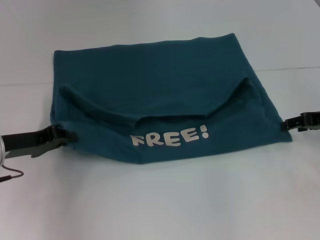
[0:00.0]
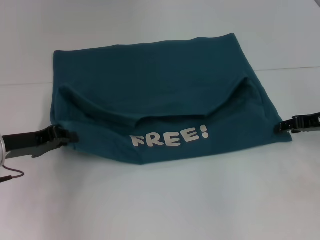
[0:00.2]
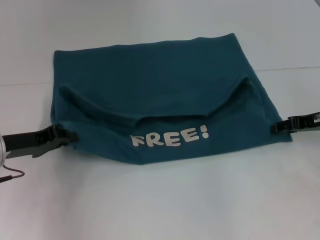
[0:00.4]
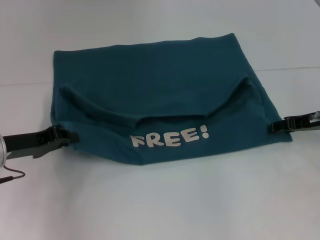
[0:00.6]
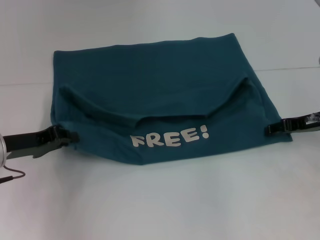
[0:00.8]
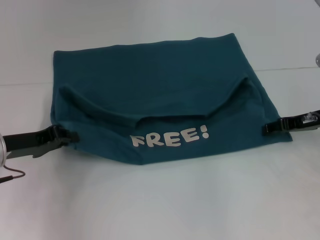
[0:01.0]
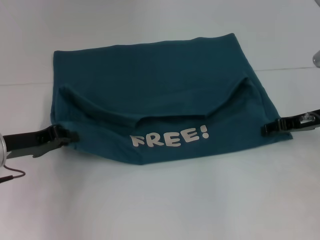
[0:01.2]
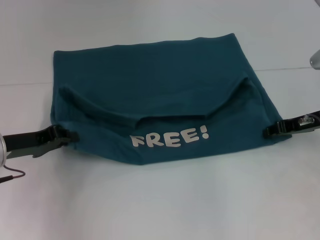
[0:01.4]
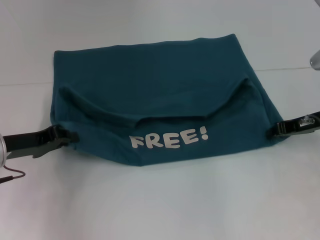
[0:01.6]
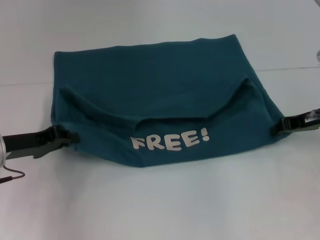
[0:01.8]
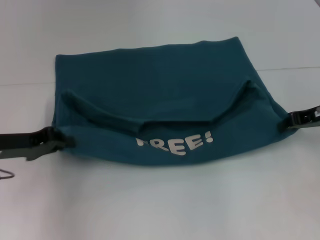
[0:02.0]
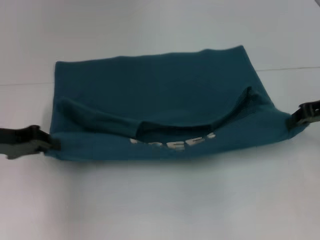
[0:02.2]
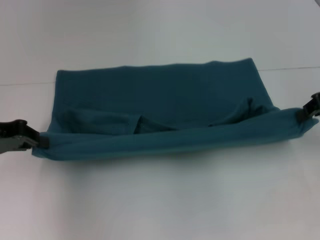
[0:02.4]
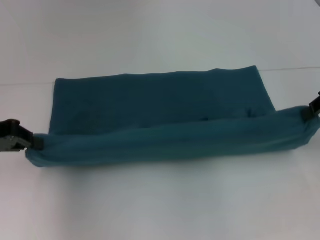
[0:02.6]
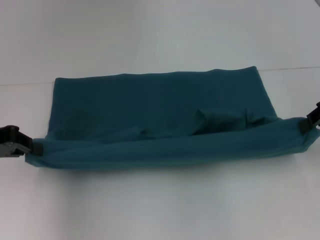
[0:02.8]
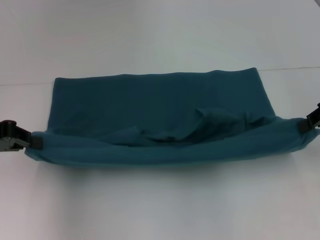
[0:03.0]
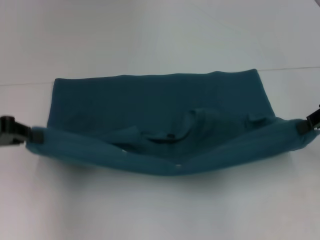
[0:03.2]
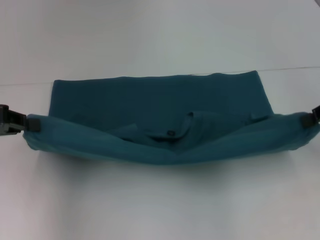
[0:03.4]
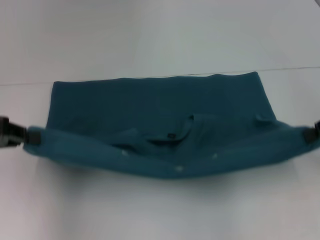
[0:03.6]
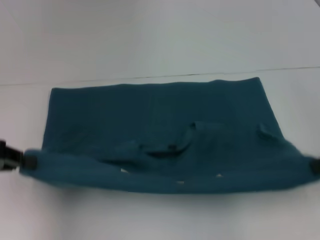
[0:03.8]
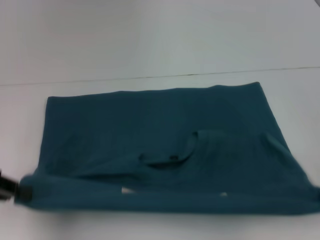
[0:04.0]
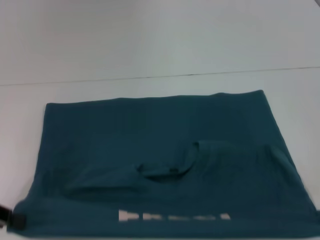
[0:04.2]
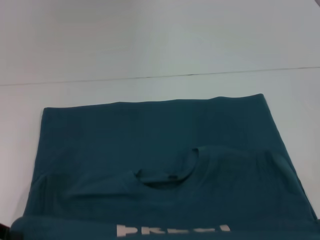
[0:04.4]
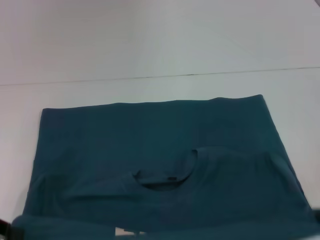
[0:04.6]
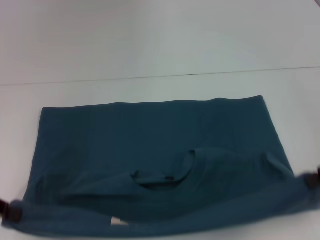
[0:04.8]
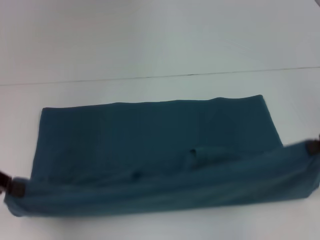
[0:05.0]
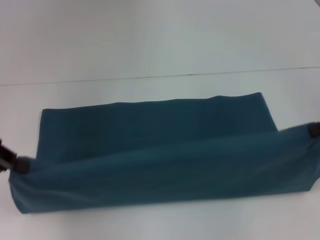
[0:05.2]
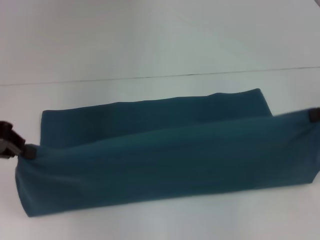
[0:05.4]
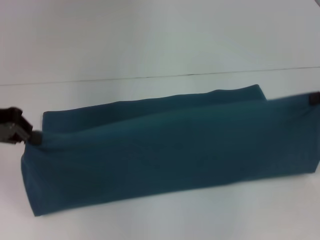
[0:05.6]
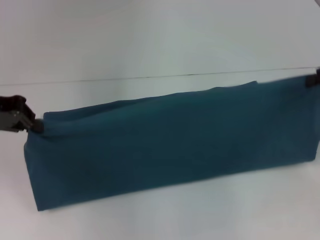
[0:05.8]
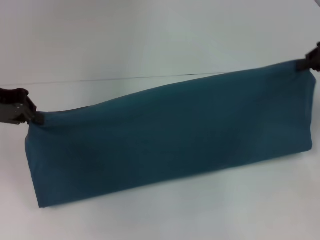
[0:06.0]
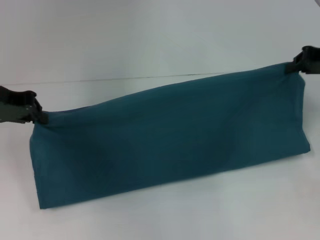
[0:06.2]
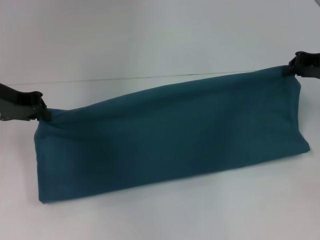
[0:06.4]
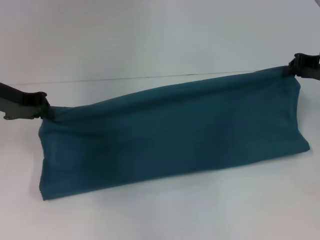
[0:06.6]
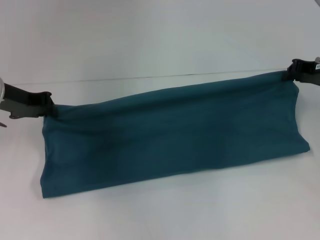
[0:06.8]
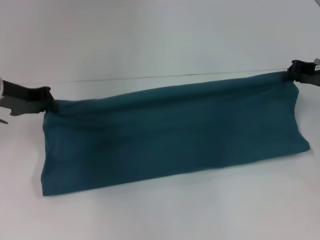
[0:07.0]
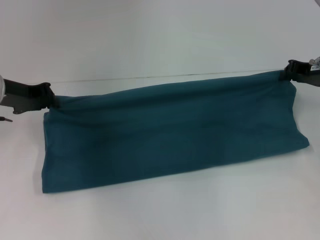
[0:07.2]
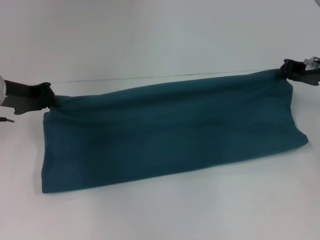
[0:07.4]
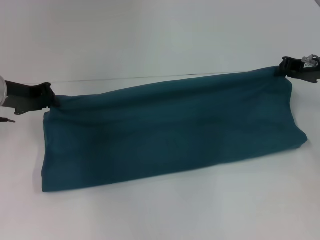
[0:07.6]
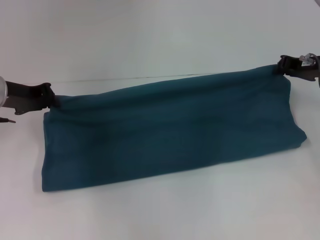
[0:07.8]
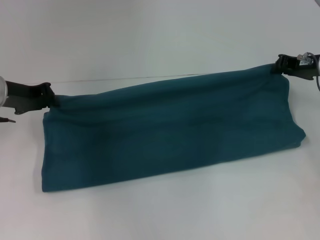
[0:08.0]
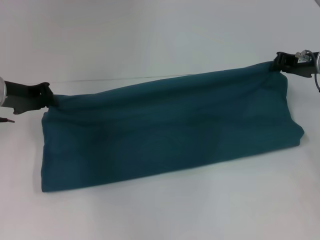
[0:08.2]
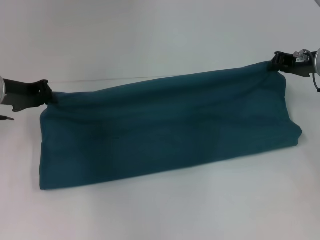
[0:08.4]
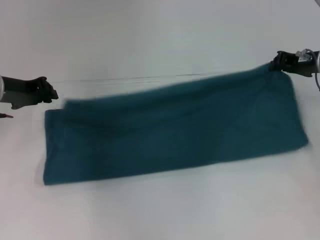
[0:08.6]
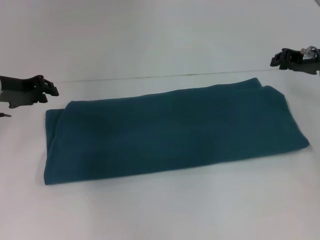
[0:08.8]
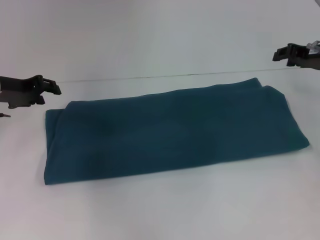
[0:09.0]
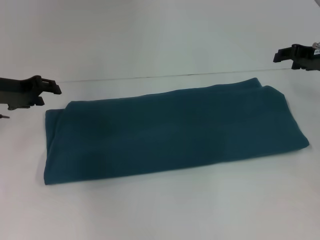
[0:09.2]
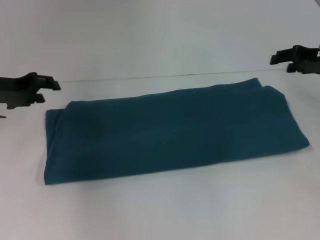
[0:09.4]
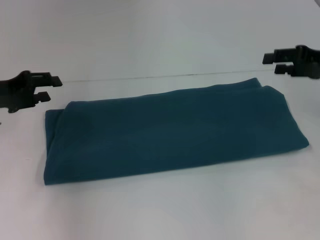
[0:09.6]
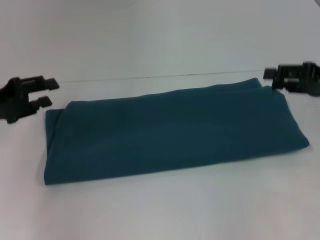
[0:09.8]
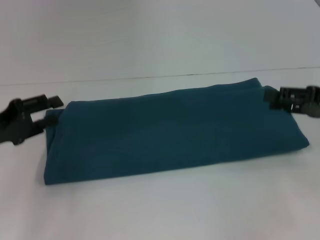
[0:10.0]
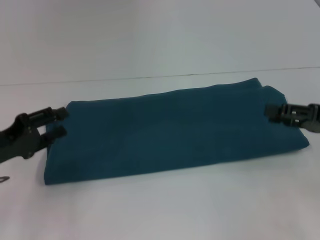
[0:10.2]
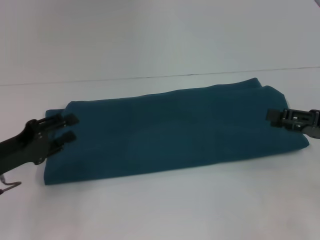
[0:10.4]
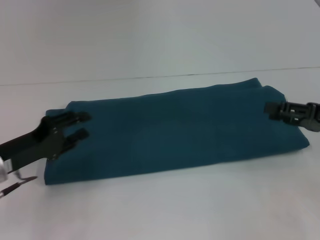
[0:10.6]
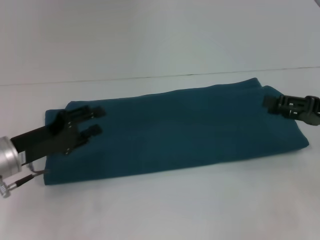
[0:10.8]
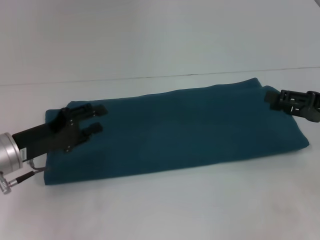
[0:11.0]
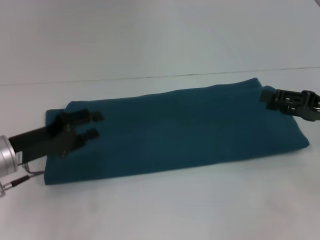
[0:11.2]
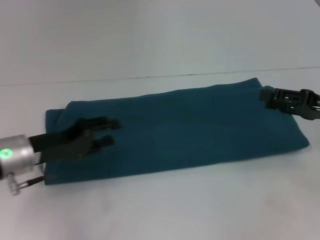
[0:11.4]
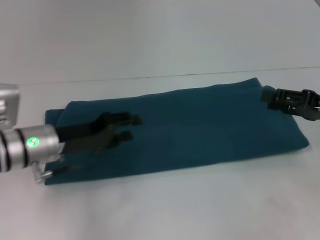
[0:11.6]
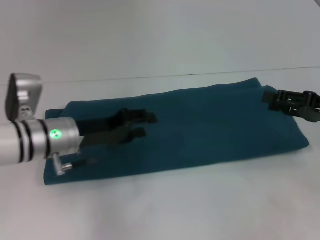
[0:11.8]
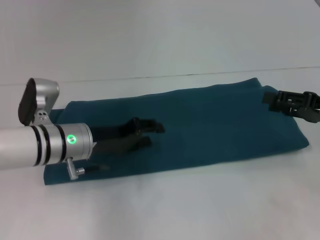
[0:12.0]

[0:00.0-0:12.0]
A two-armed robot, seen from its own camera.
Step, 0:00.0 to 0:04.4: Pull the clothes with your left hand.
Step, 0:00.0 to 0:04.4: Pull the clothes with your right hand.
Step, 0:04.6 to 0:08.6: Fold the clothes to the right.
0:00.0 to 0:01.6: There are only small adjustments of the grippers.
0:01.6 to 0:03.0: The two grippers go approximately 10 cm upward.
0:03.0 to 0:04.4: The left gripper moves backward, some 10 cm, while the right gripper goes some 10 cm downward and backward.
0:04.4 to 0:06.0: The grippers both shift forward and upward by about 15 cm.
0:06.0 to 0:07.6: Both grippers move downward, roughly 10 cm.
0:07.6 to 0:09.0: There are only small adjustments of the grippers.
0:09.0 to 0:10.4: The left gripper moves backward and downward, approximately 15 cm. The right gripper shifts approximately 15 cm backward, and opens up.
0:10.4 to 0:12.0: The left gripper moves to the right and forward, about 15 cm.

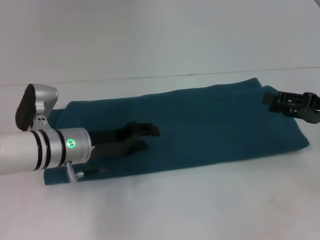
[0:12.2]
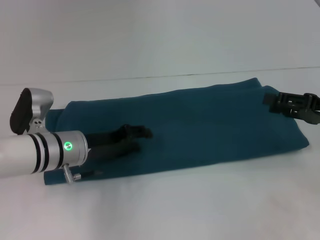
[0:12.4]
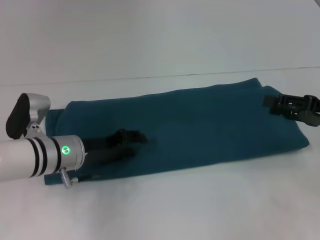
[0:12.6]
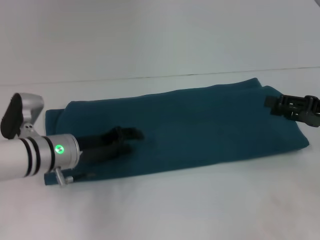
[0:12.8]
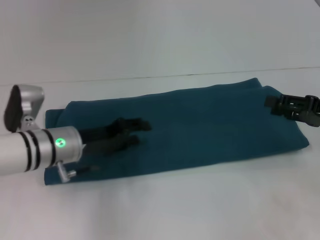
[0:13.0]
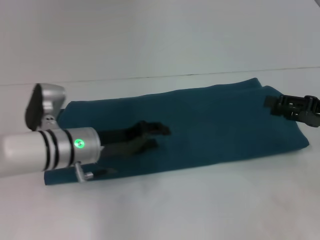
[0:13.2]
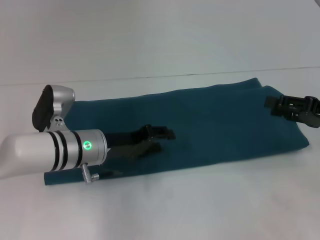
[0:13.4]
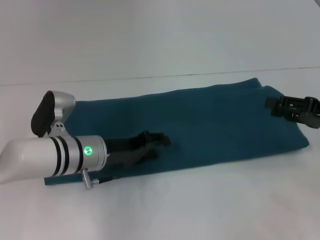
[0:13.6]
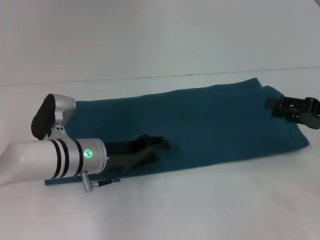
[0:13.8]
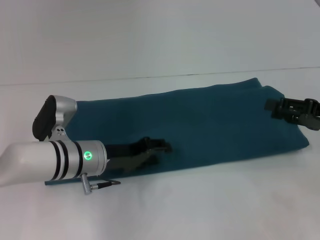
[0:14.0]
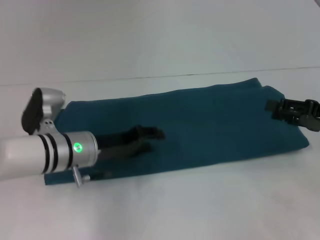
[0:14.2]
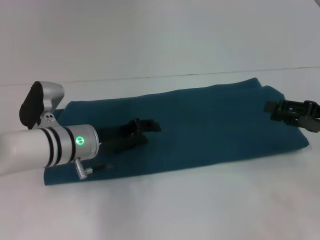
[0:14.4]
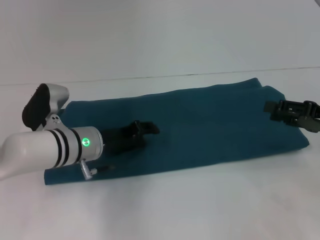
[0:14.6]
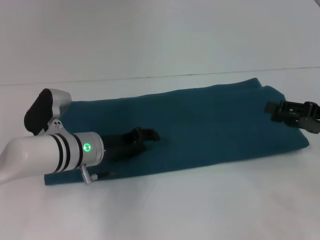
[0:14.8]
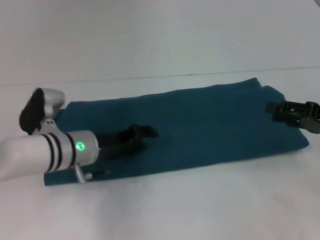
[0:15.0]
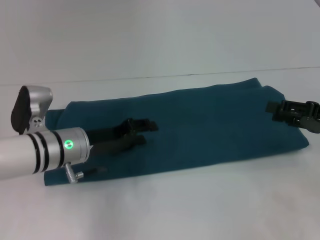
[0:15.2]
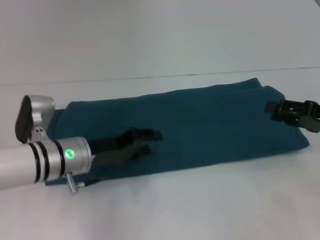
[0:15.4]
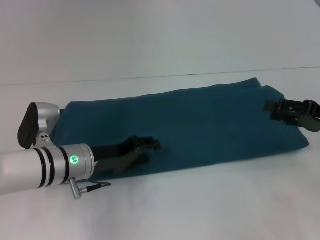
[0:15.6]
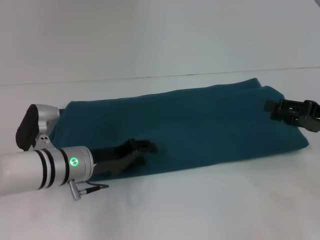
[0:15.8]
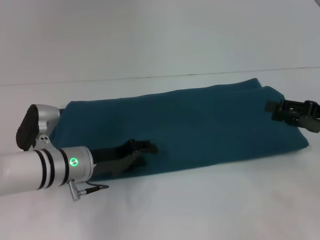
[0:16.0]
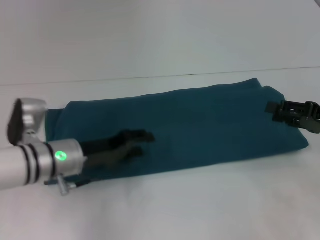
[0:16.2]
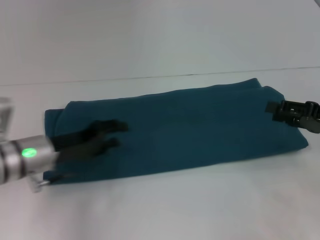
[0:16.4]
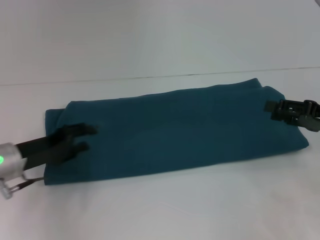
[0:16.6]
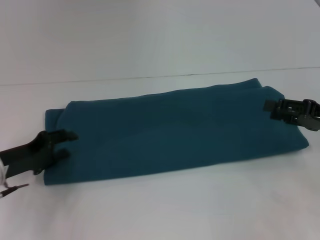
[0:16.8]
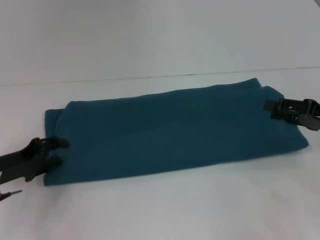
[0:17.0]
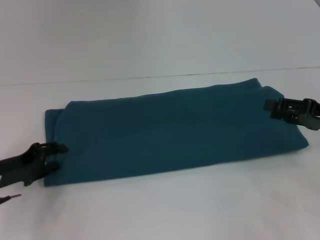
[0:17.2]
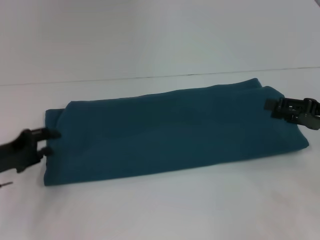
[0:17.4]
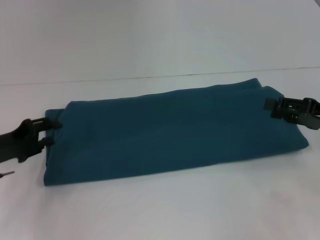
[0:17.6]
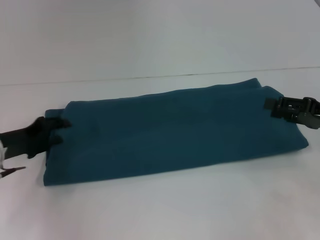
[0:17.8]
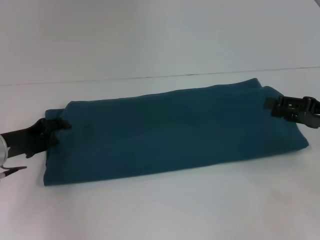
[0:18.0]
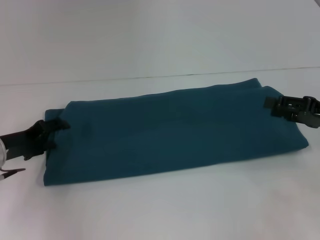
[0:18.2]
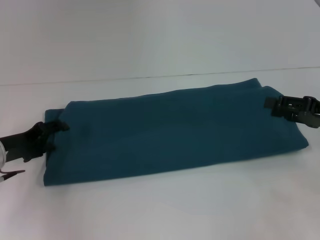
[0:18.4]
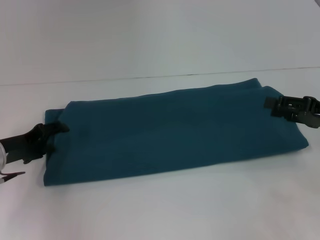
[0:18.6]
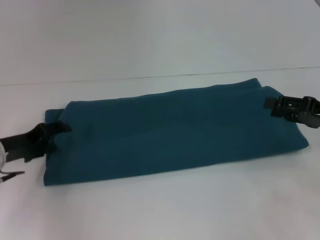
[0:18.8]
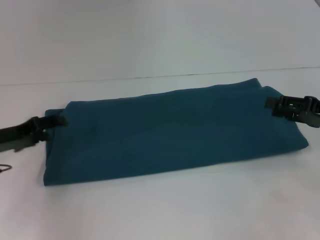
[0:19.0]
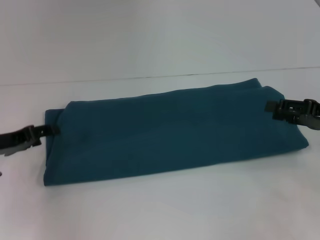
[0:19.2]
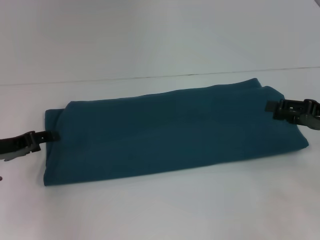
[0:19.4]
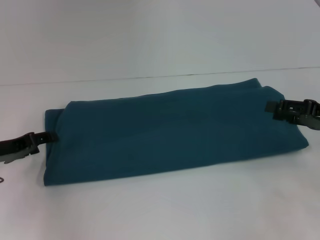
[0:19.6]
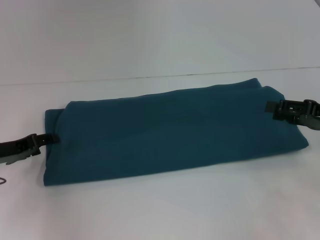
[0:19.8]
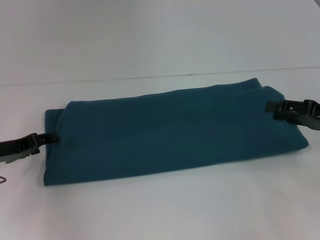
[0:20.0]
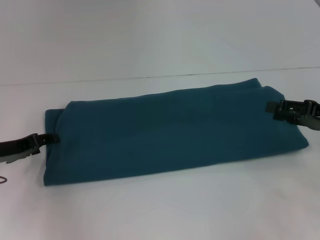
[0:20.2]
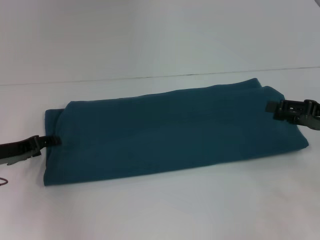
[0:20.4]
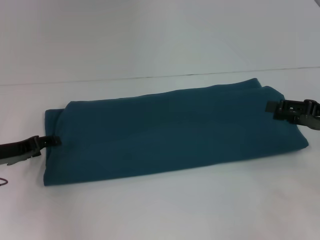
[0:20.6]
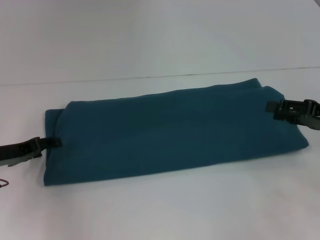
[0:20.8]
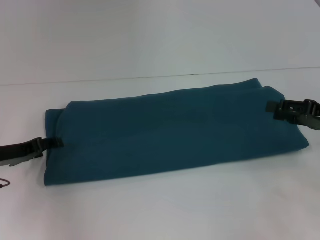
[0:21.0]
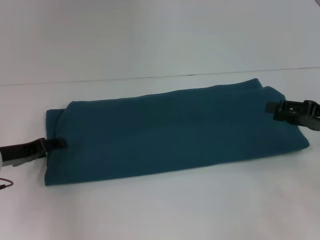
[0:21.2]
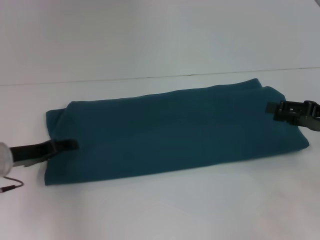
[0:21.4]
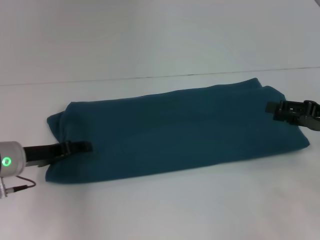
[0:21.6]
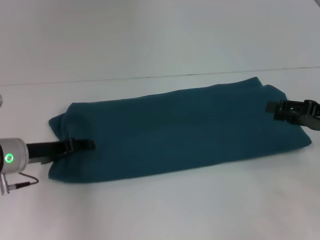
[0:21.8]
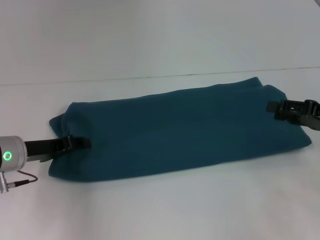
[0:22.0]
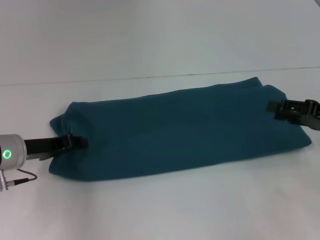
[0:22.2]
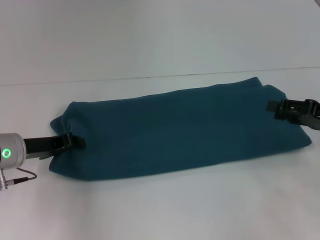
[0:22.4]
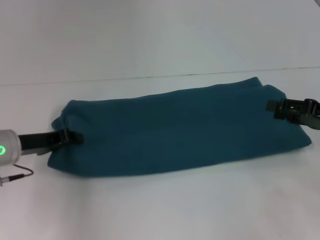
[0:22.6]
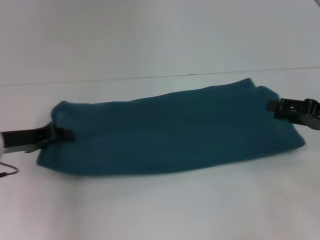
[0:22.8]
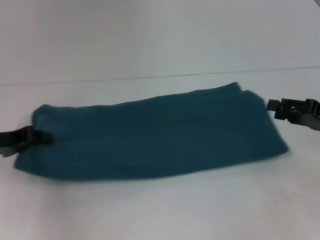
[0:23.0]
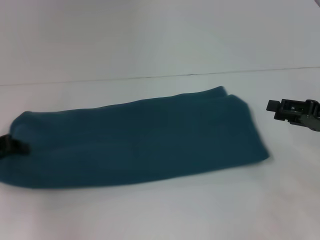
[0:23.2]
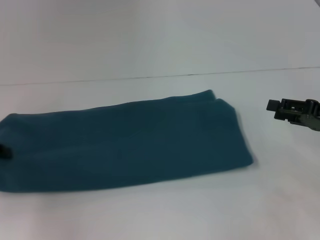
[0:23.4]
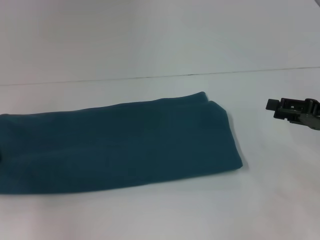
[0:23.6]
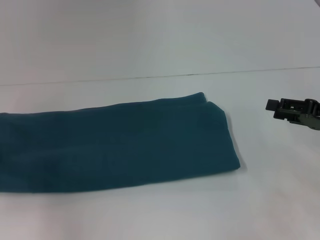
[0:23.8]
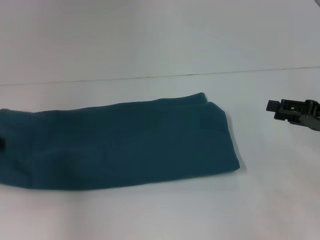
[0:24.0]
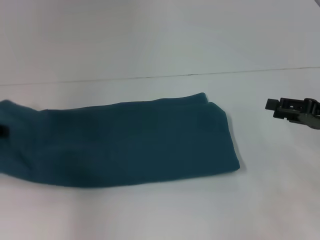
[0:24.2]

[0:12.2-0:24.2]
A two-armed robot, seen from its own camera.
0:12.2 to 0:15.2: The grippers make only small movements.
0:15.2 to 0:16.6: The left gripper shifts approximately 10 cm to the left.
0:16.6 to 0:18.2: The grippers make only small movements.
0:18.2 to 0:19.8: The grippers make only small movements.
0:19.8 to 0:21.2: Both grippers stay put.
0:21.2 to 0:22.6: The left gripper closes up.
0:22.6 to 0:24.2: The left gripper shifts roughly 10 cm upward and to the left.
